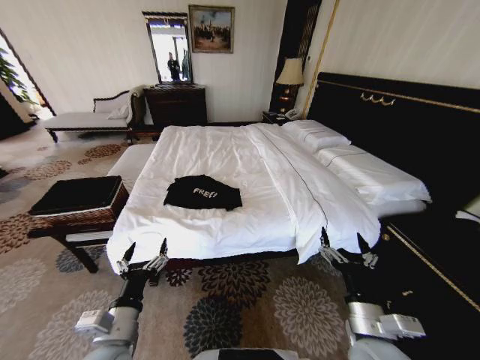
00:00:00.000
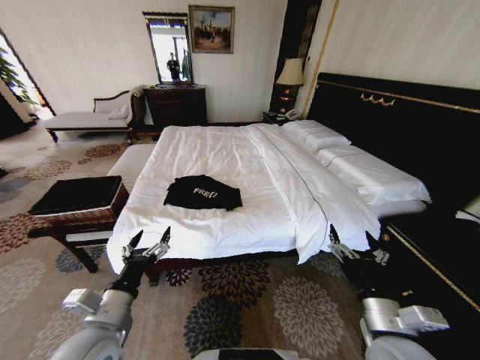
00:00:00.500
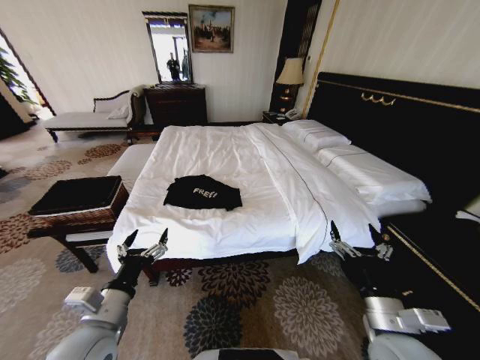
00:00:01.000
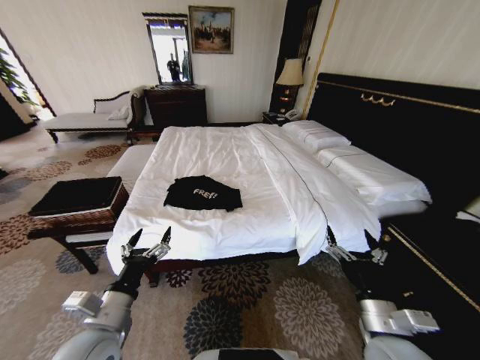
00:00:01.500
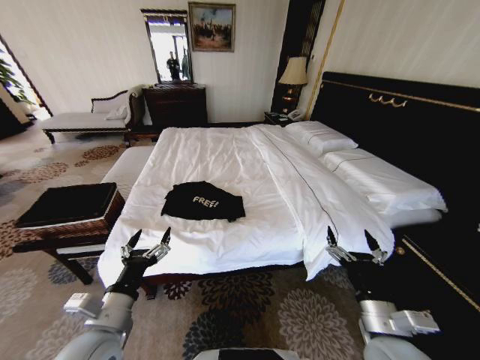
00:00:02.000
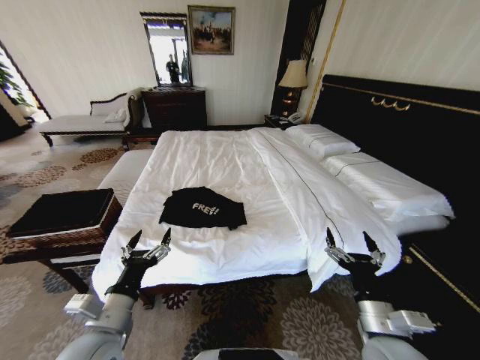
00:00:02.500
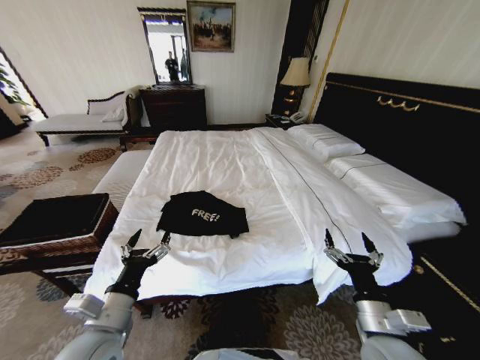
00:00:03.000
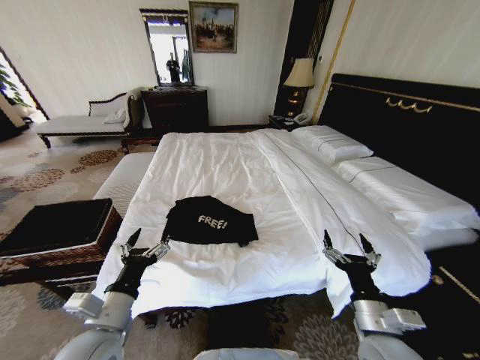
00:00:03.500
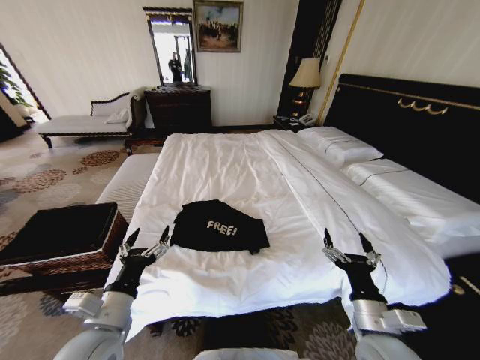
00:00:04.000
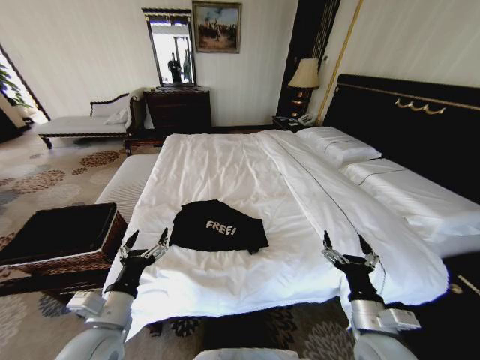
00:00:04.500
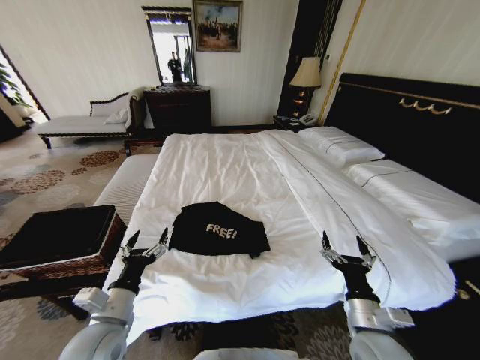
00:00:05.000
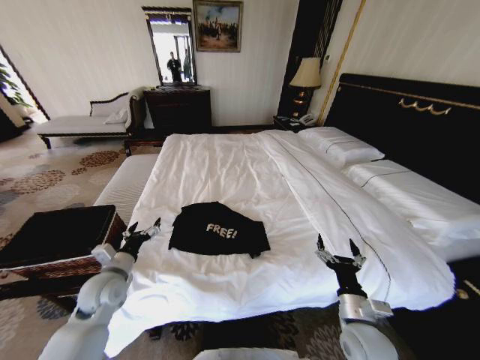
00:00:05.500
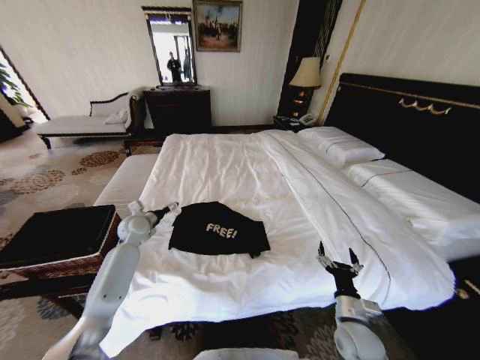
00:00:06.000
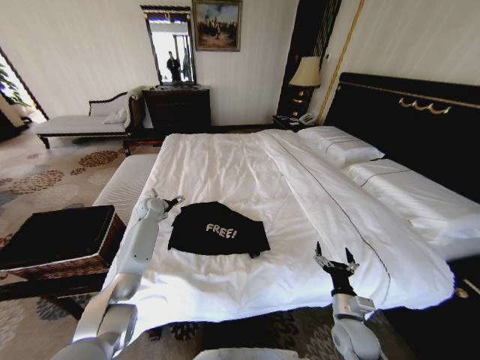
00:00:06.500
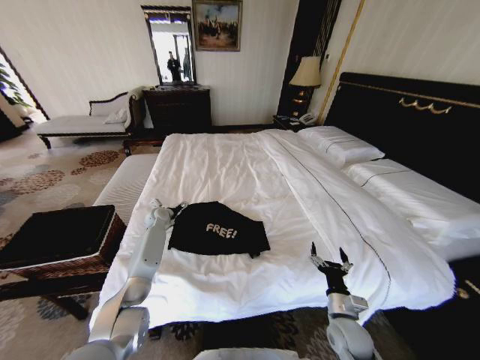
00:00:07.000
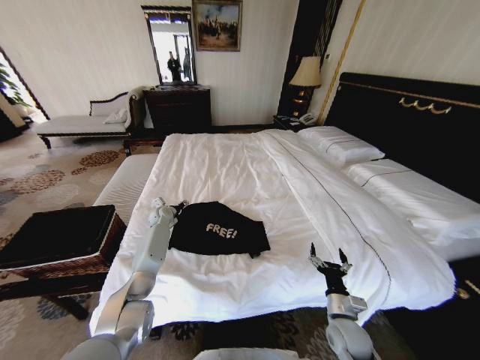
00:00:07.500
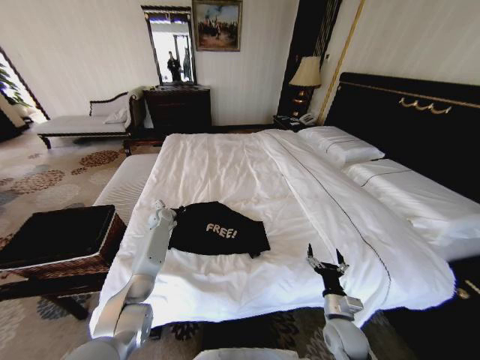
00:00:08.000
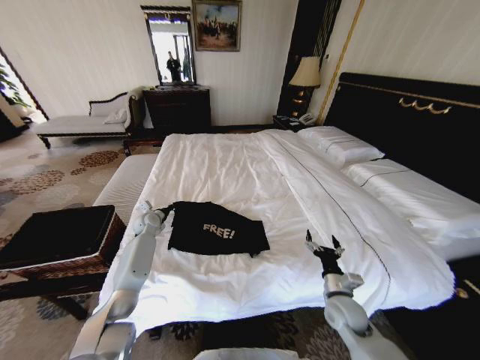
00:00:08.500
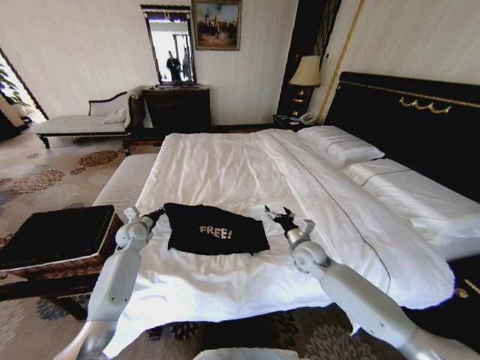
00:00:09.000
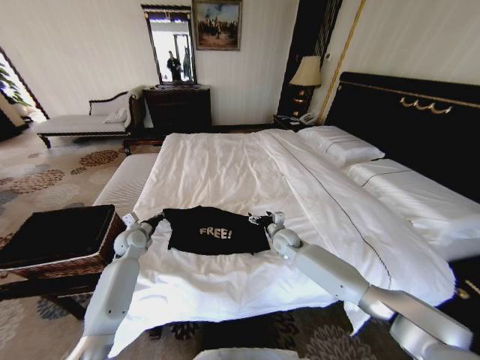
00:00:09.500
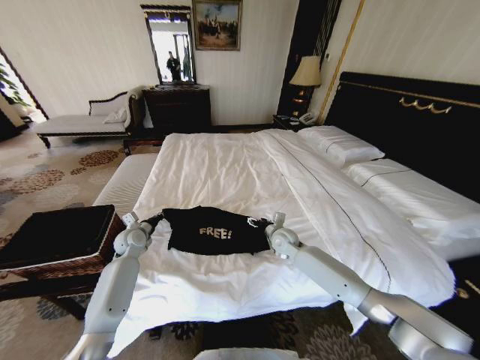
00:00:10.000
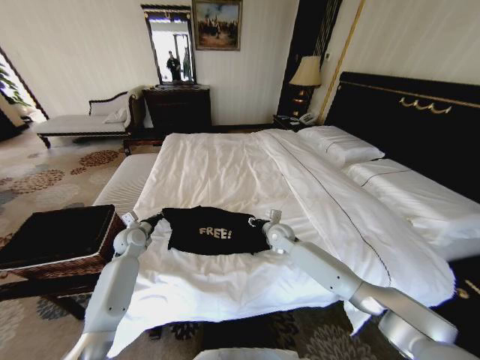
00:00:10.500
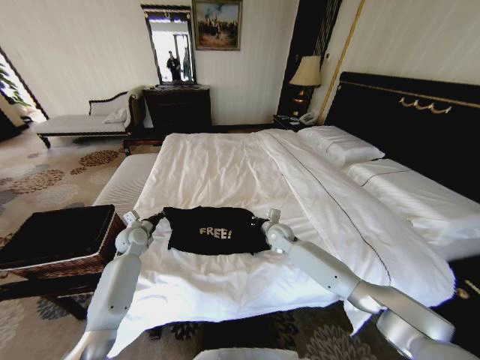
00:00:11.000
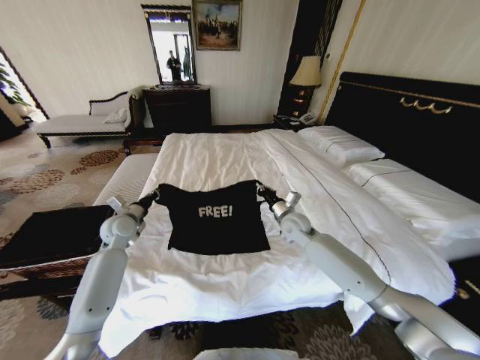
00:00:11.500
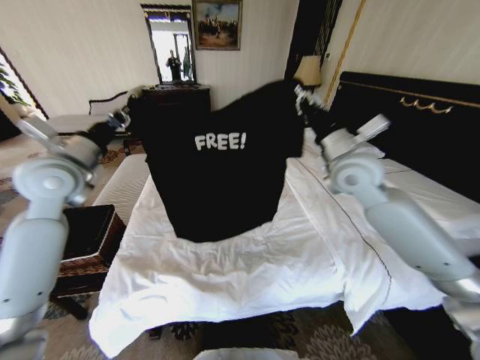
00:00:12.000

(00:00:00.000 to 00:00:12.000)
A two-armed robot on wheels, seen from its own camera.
Task of the whole recording: Fold the clothes on the bed and place them into the basket.
00:00:04.000 - 00:00:06.000: The right gripper shifts some 10 cm downward, while the left gripper travels forward by roughly 30 cm.
00:00:06.000 - 00:00:08.000: The left gripper travels forward and downward by approximately 15 cm, and closes its fingers.
00:00:08.000 - 00:00:10.000: The left gripper is displaced backward and to the left by approximately 15 cm, while the right gripper moves forward and to the left, approximately 30 cm.
00:00:10.000 - 00:00:12.000: Both grippers move upward, approximately 30 cm. The right gripper closes its fingers.

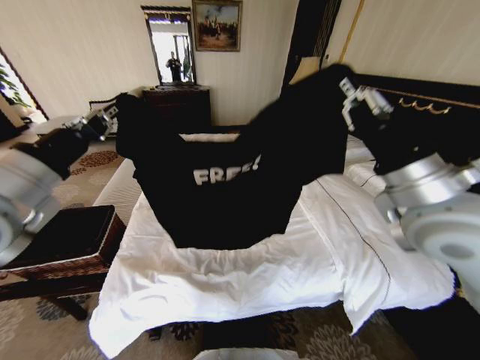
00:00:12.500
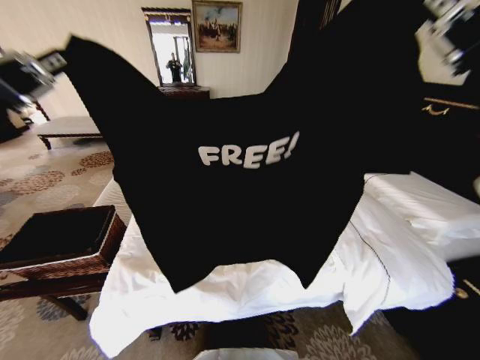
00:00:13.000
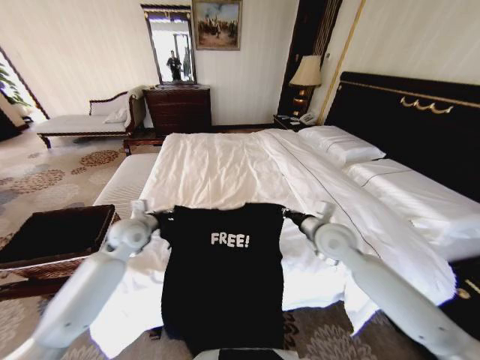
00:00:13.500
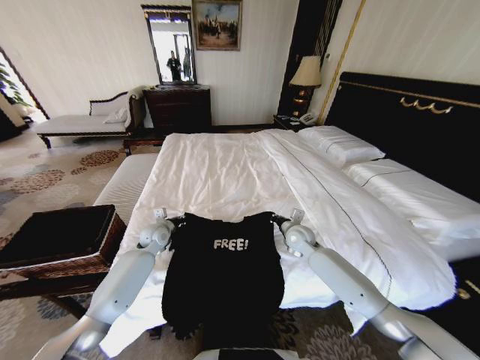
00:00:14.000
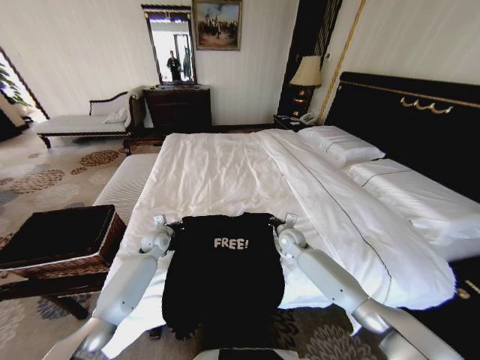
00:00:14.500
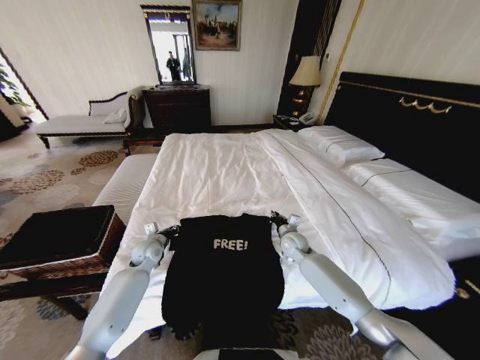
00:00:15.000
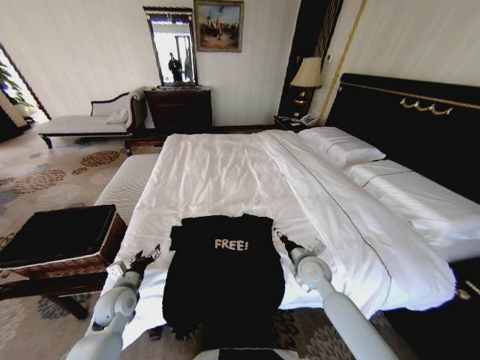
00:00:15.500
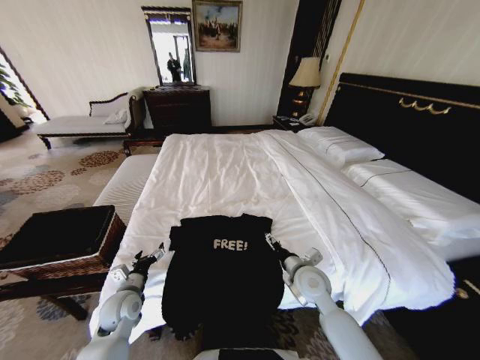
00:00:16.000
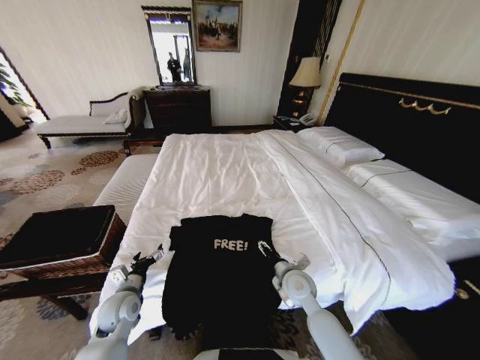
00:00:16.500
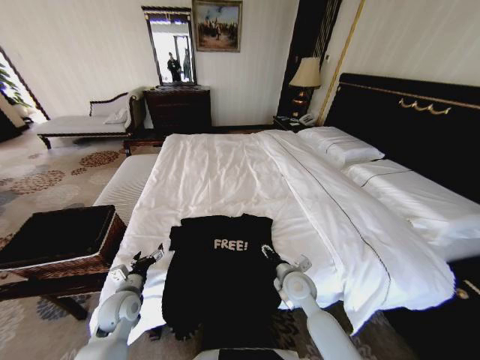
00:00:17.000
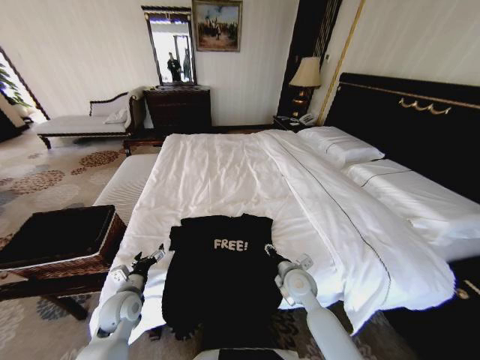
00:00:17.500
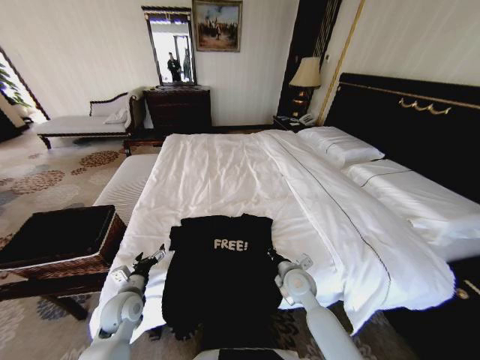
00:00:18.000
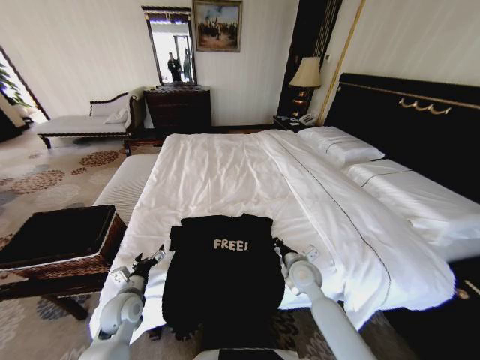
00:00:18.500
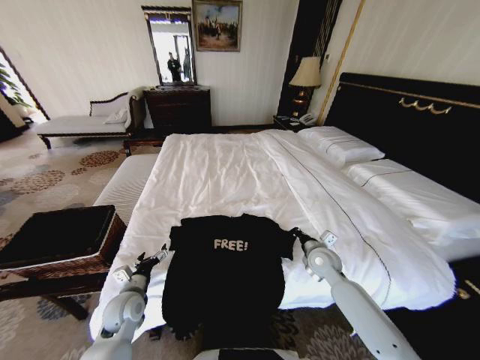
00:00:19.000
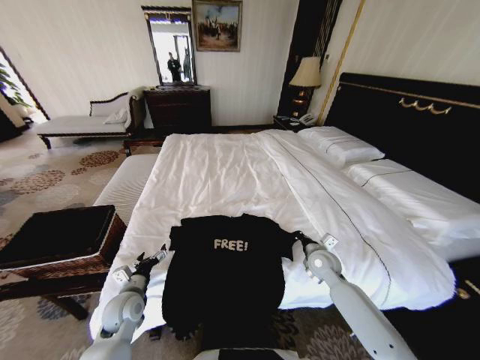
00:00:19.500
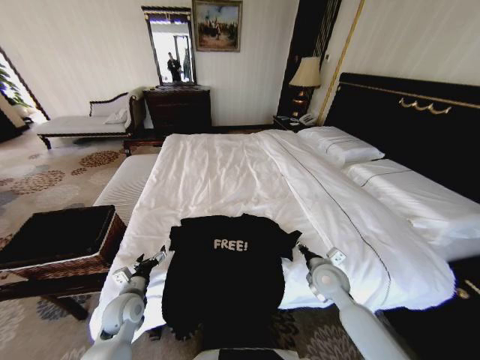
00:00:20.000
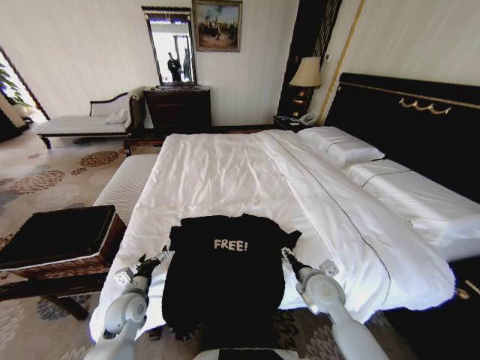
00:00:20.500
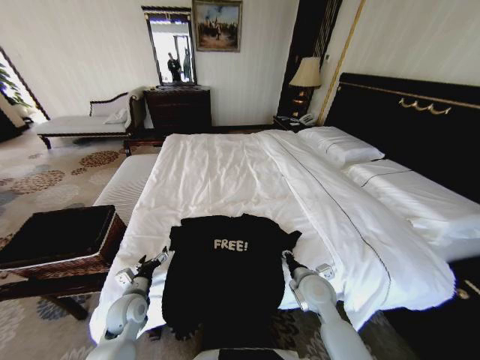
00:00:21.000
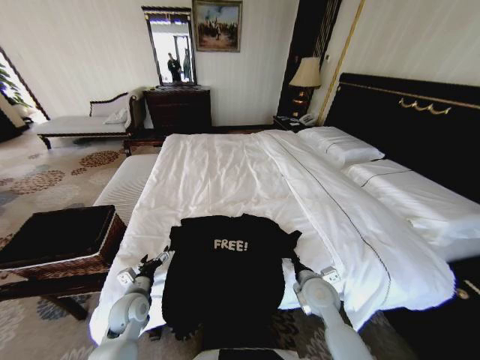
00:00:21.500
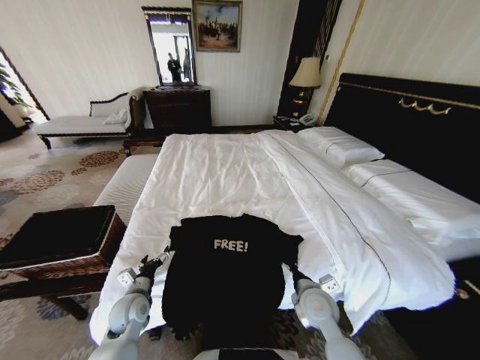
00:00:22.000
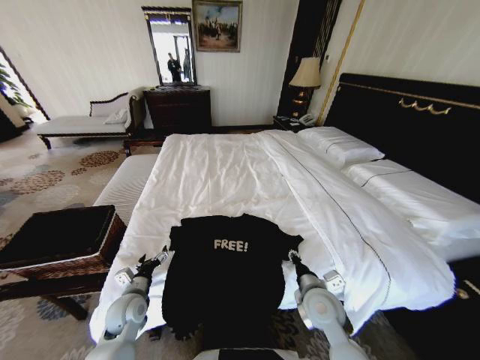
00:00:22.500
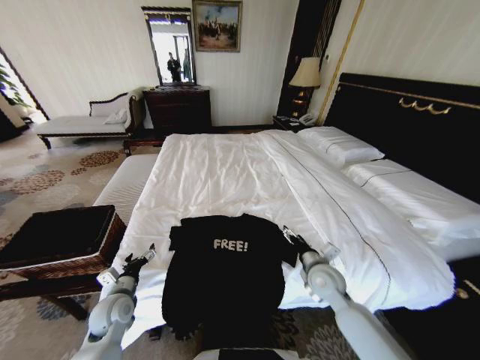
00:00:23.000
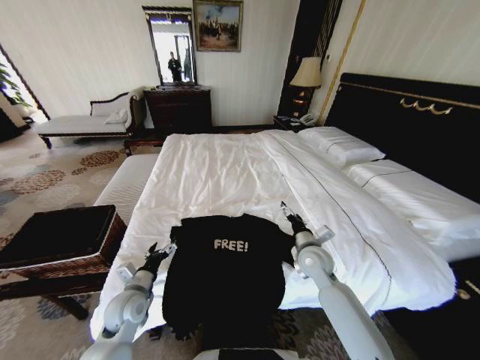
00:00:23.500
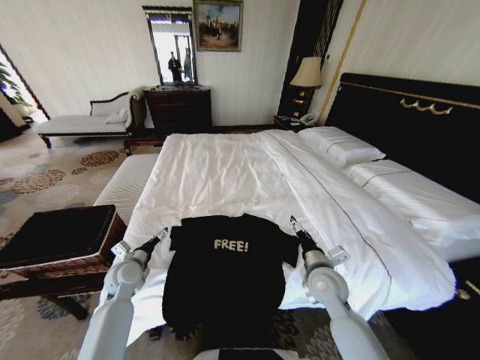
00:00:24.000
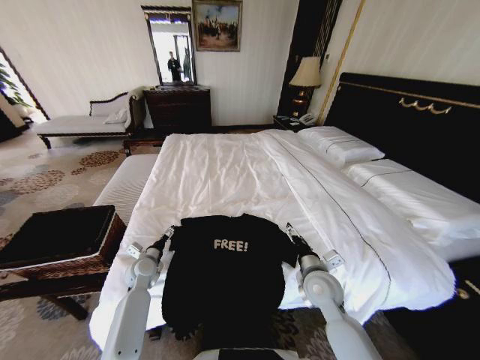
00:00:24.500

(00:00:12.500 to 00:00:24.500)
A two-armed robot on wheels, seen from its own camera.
Task of the whole recording: Fold the clothes on the bed and place them into the basket.
00:00:12.500 - 00:00:14.500: The two grippers go roughly 40 cm downward and forward.
00:00:14.500 - 00:00:16.500: Both grippers move backward, some 20 cm. The left gripper opens up, while the right gripper opens its fingers.
00:00:16.500 - 00:00:18.500: The right gripper closes.
00:00:18.500 - 00:00:20.500: The right gripper moves backward, about 5 cm, and opens.
00:00:20.500 - 00:00:22.500: The right gripper closes up.
00:00:22.500 - 00:00:24.500: The right gripper opens; the left gripper heads forward, covering some 10 cm.

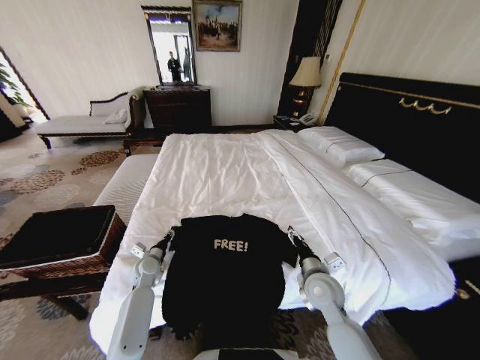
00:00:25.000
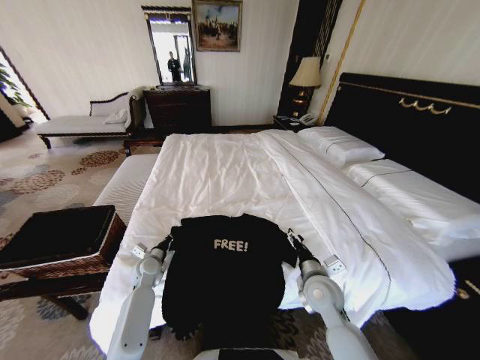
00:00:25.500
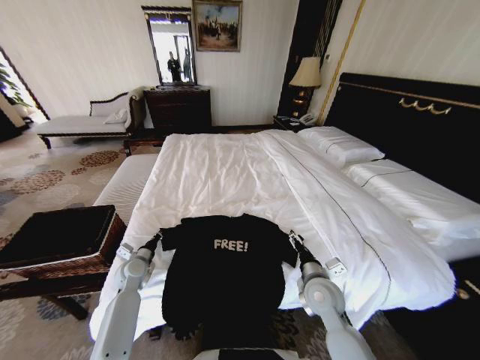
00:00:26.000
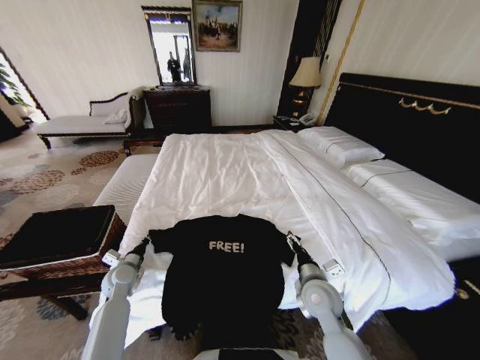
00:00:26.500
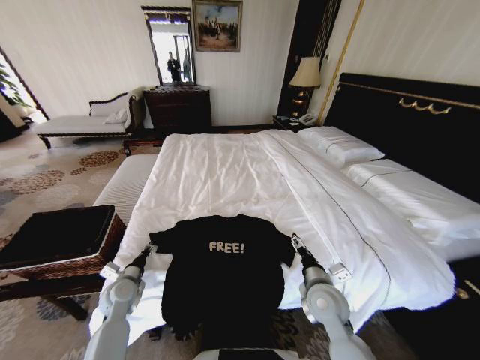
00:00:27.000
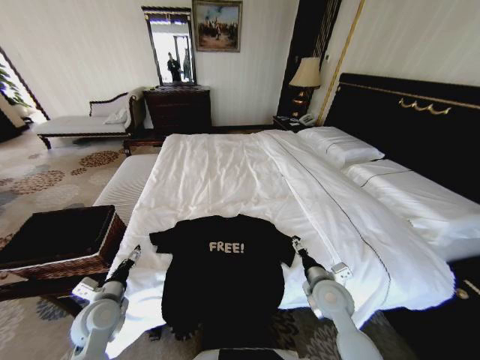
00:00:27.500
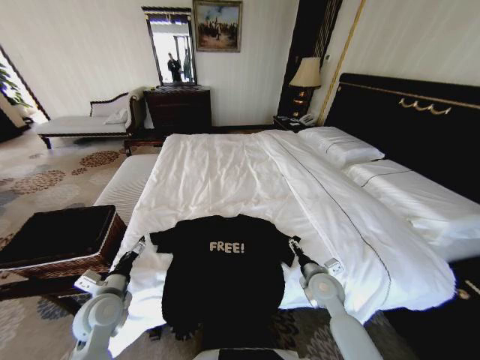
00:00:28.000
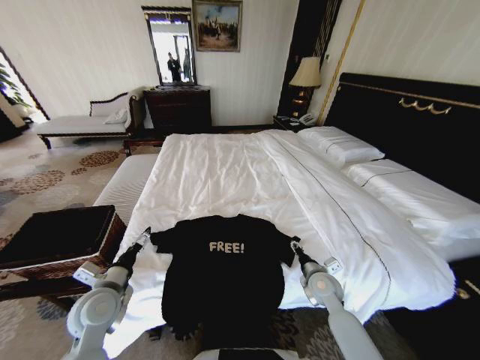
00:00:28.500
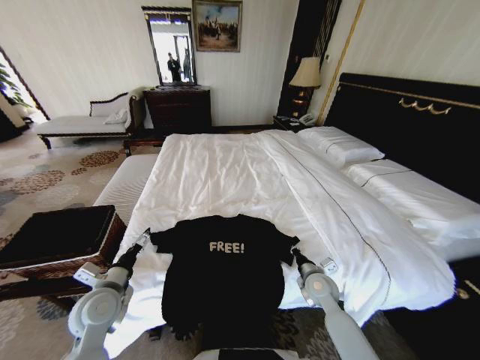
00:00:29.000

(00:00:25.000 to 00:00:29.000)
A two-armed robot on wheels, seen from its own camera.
Task of the whole recording: Fold the clothes on the bed and place them into the basket.
00:00:25.000 - 00:00:27.000: The left gripper heads backward, covering approximately 10 cm.
00:00:27.000 - 00:00:29.000: The left gripper moves upward and backward, about 10 cm, and opens its fingers. The right gripper heads downward and forward, covering roughly 10 cm, and closes up.
